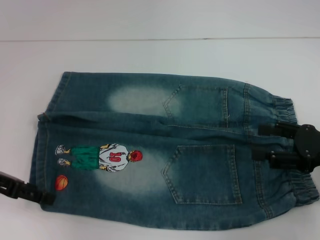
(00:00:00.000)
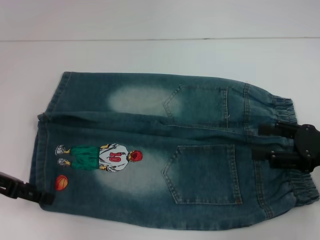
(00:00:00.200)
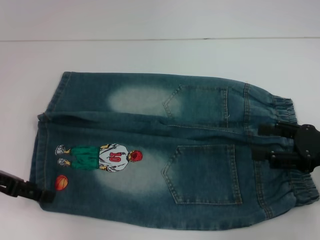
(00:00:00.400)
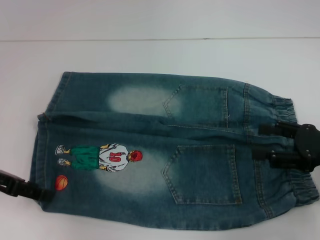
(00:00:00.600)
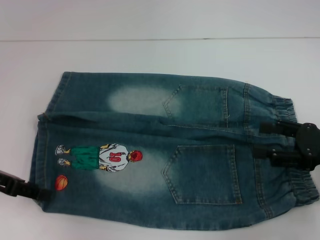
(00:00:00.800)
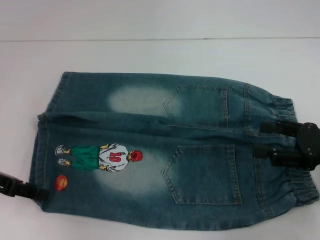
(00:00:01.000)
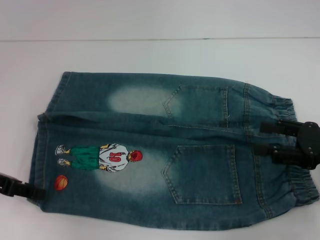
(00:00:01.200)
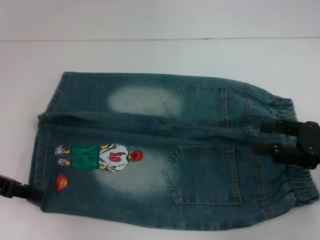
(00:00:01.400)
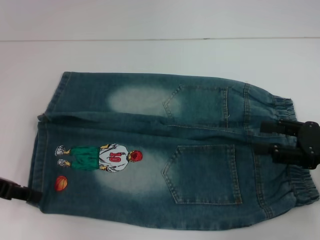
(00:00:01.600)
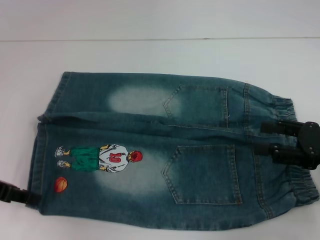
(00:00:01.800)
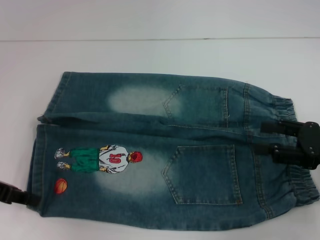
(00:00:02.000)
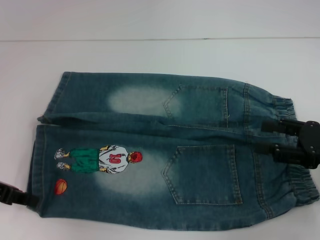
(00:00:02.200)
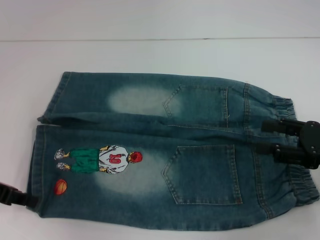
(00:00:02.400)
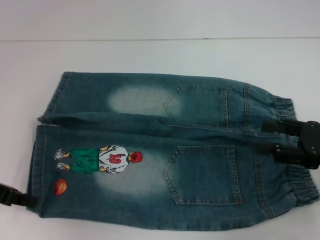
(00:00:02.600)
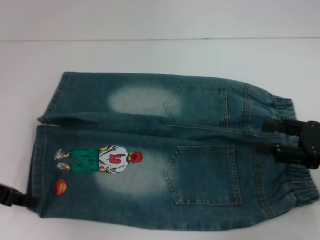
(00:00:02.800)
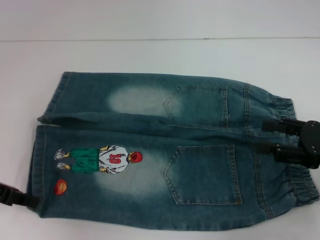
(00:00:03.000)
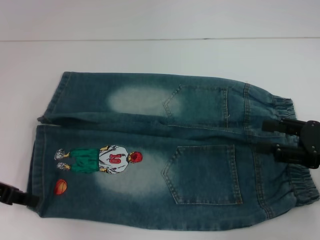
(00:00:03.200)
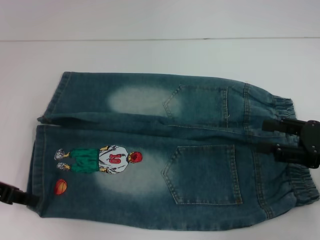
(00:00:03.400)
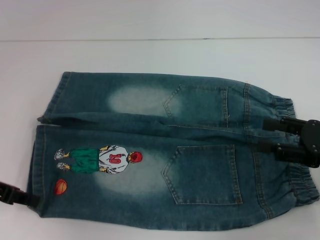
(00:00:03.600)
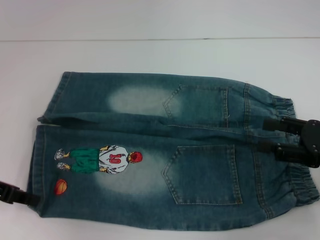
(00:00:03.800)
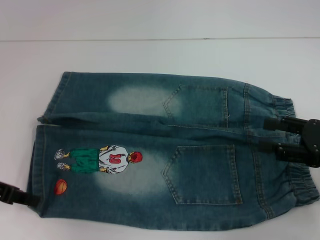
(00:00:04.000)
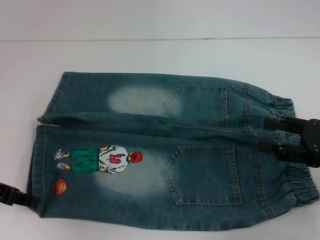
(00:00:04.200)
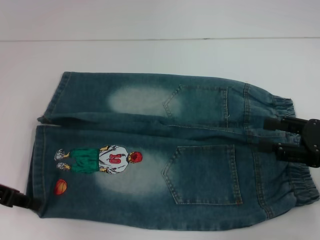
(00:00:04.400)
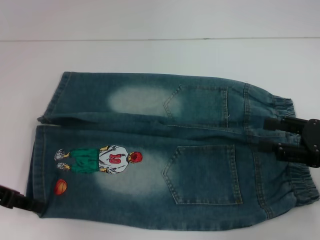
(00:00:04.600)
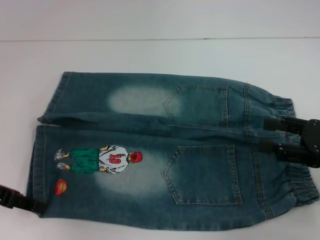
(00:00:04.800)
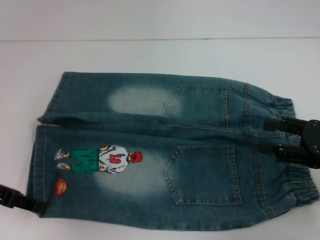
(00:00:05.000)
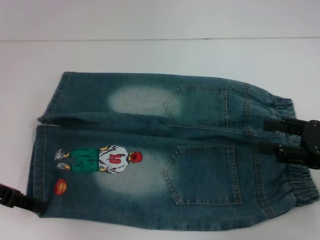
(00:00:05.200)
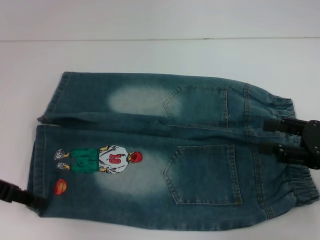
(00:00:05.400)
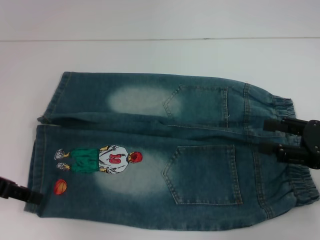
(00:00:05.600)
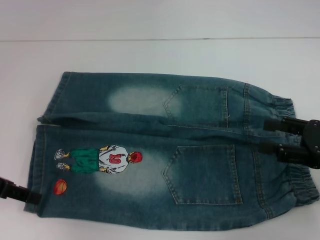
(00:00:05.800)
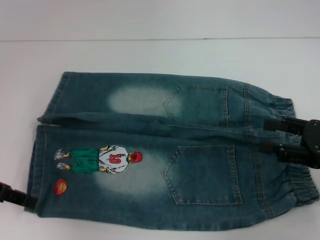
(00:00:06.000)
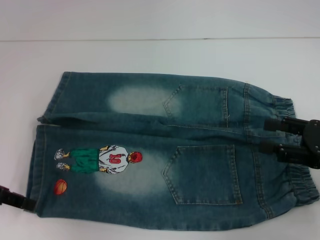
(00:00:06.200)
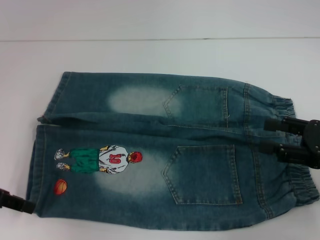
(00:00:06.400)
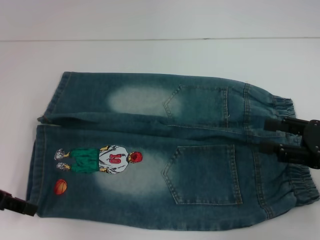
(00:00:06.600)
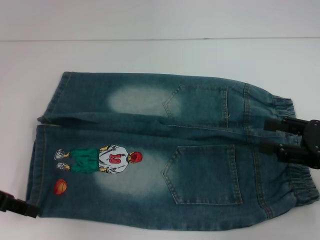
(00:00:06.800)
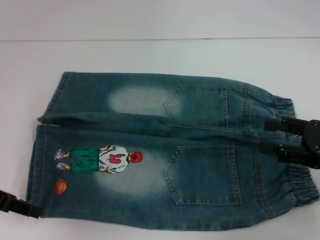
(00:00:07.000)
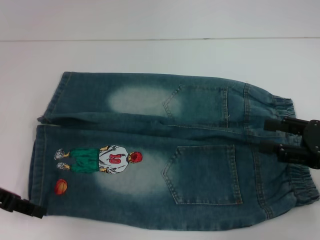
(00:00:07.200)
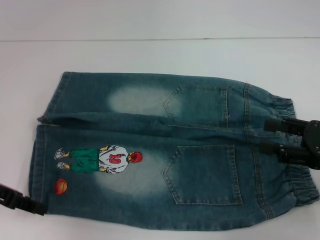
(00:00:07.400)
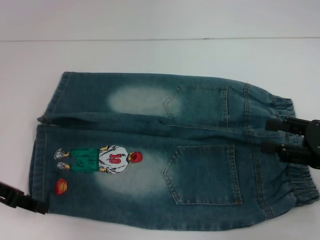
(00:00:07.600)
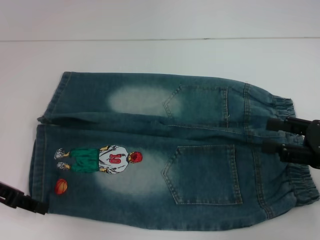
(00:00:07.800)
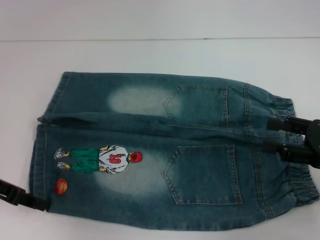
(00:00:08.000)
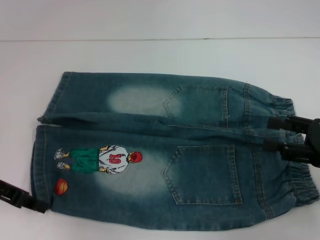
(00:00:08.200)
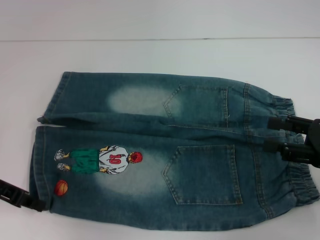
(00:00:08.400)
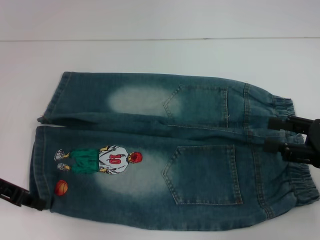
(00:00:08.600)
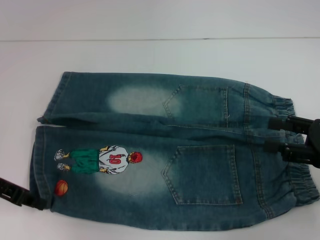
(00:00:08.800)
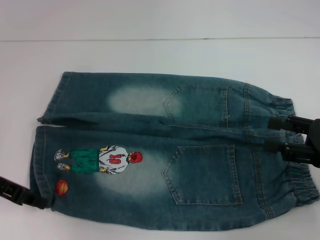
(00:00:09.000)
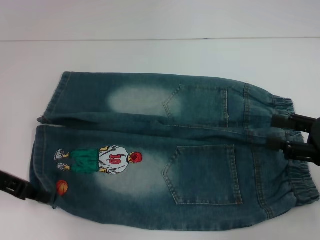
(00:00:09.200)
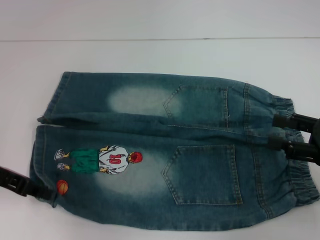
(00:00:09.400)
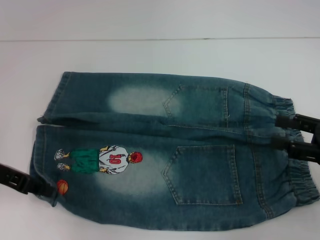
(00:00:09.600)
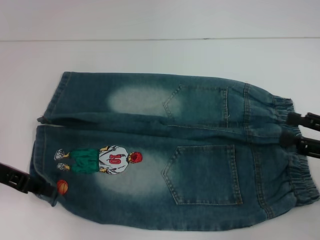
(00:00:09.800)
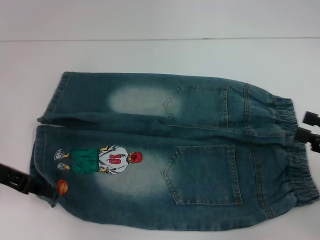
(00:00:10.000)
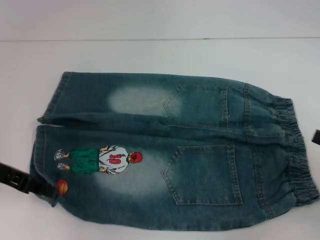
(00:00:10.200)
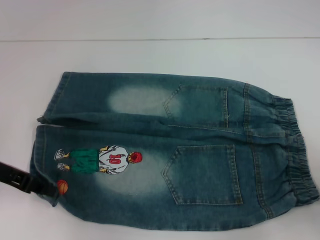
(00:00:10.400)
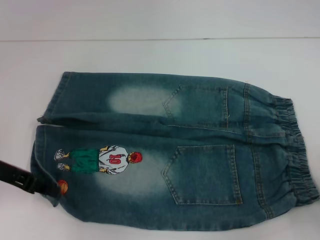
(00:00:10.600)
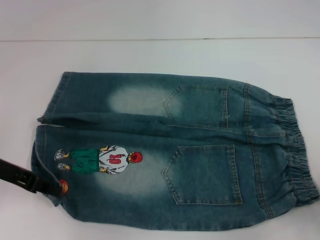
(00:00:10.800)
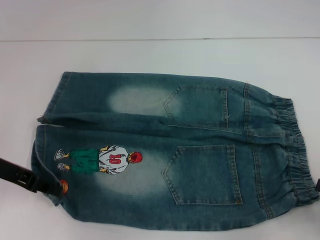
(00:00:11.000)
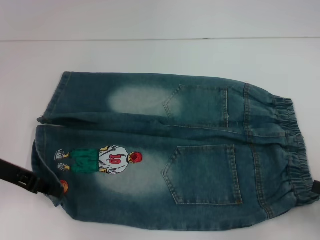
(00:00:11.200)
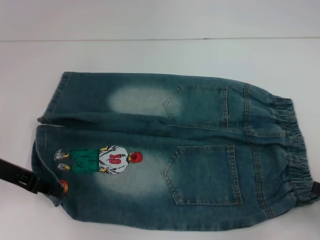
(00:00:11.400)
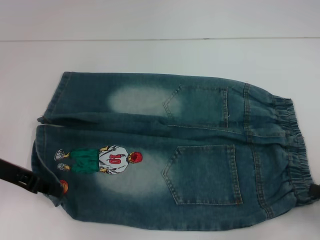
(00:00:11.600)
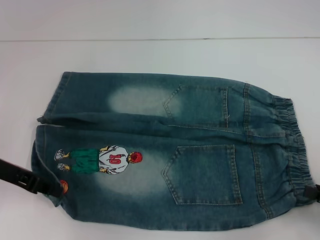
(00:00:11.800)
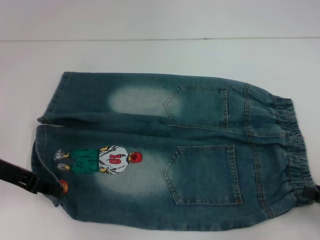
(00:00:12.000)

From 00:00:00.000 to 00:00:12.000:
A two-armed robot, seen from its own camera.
From 00:00:00.000 to 00:00:01.600: The left gripper closes up.
From 00:00:01.600 to 00:00:04.400: Both grippers stay put.
From 00:00:07.600 to 00:00:09.000: The left gripper closes its fingers.
From 00:00:09.000 to 00:00:10.400: The right gripper shifts about 10 cm backward and to the right.

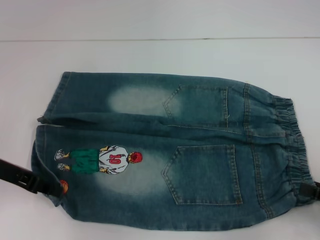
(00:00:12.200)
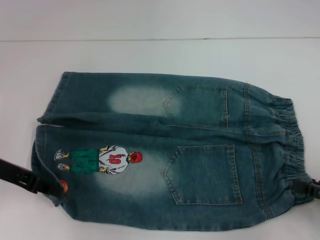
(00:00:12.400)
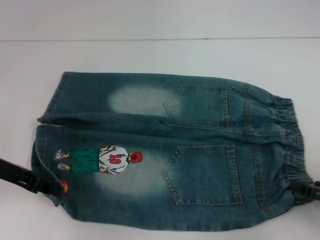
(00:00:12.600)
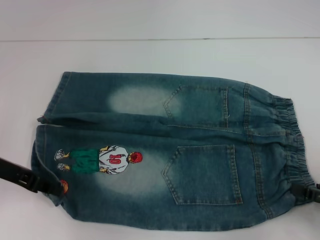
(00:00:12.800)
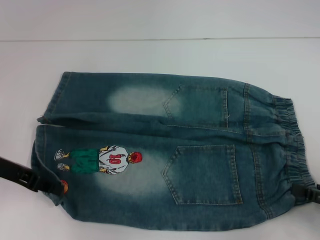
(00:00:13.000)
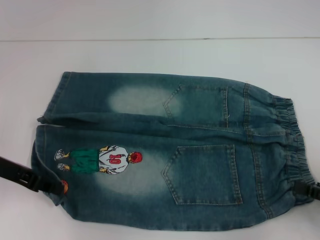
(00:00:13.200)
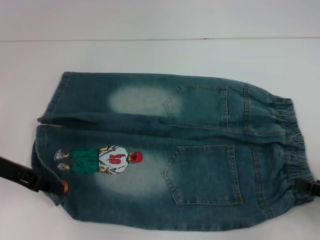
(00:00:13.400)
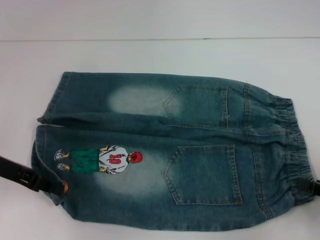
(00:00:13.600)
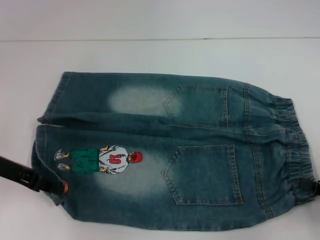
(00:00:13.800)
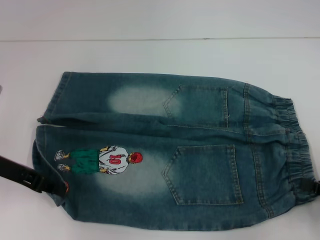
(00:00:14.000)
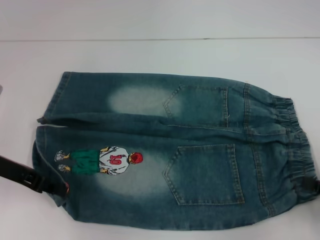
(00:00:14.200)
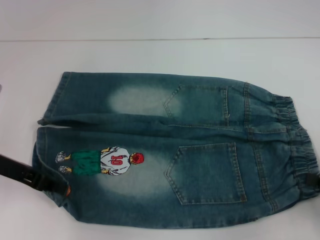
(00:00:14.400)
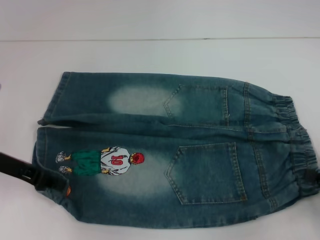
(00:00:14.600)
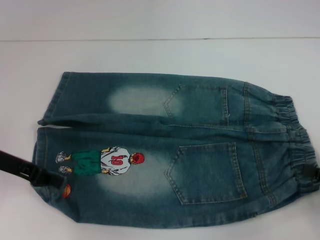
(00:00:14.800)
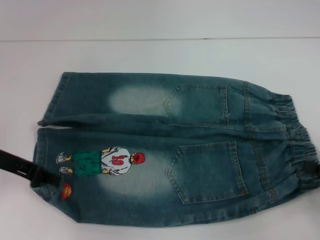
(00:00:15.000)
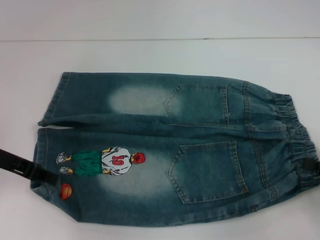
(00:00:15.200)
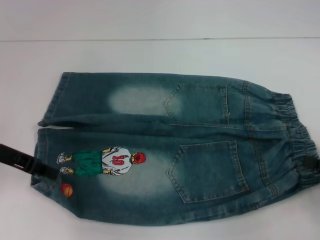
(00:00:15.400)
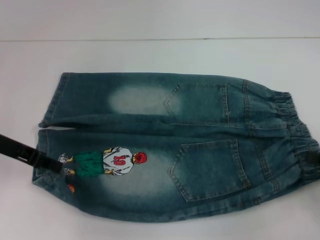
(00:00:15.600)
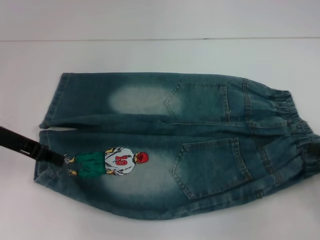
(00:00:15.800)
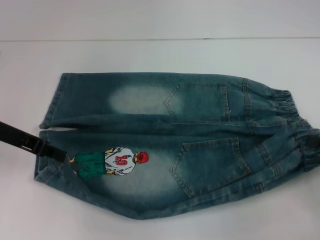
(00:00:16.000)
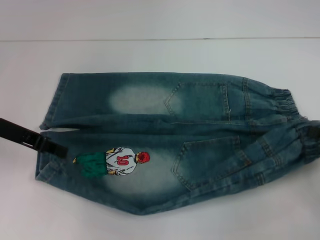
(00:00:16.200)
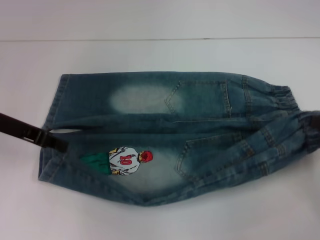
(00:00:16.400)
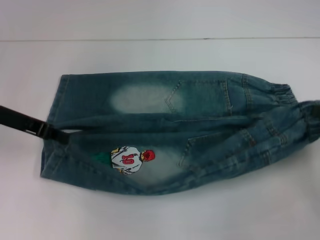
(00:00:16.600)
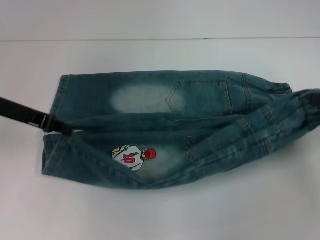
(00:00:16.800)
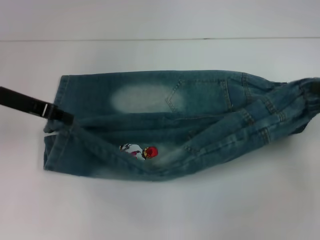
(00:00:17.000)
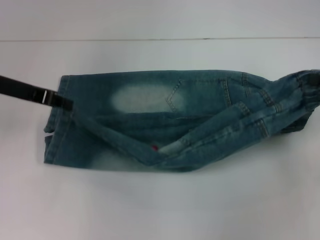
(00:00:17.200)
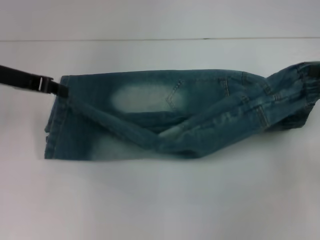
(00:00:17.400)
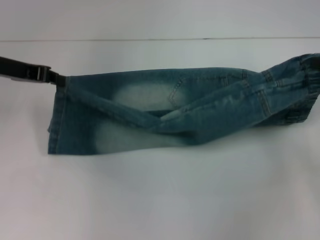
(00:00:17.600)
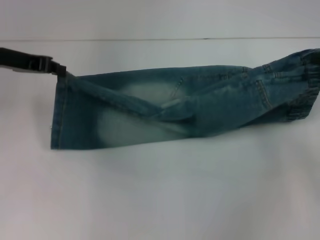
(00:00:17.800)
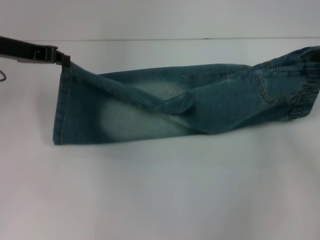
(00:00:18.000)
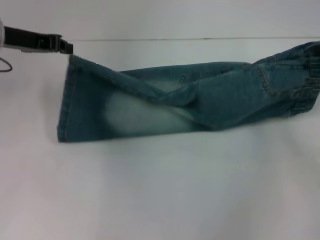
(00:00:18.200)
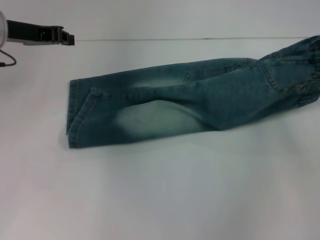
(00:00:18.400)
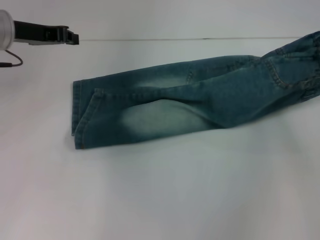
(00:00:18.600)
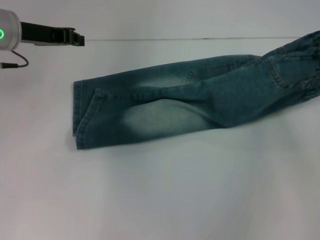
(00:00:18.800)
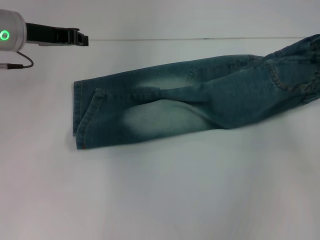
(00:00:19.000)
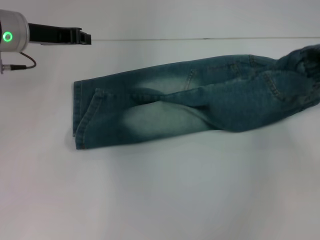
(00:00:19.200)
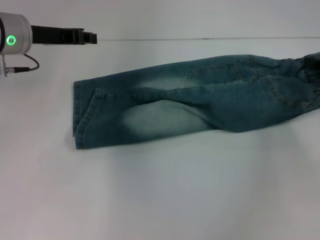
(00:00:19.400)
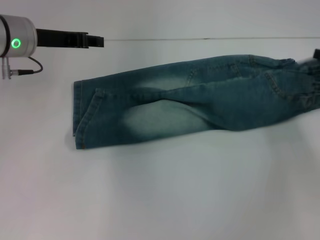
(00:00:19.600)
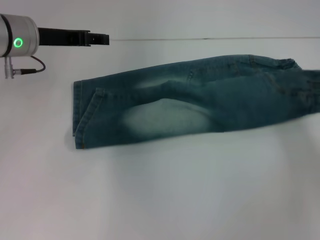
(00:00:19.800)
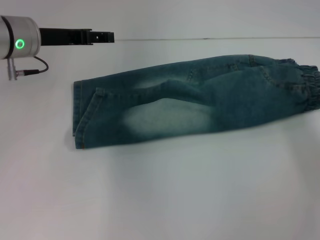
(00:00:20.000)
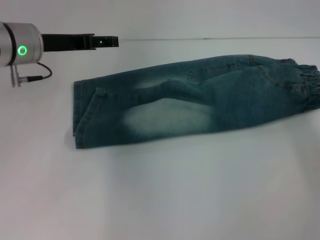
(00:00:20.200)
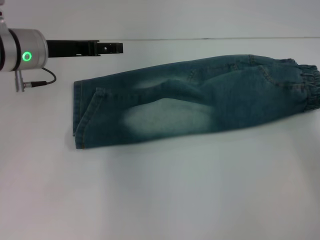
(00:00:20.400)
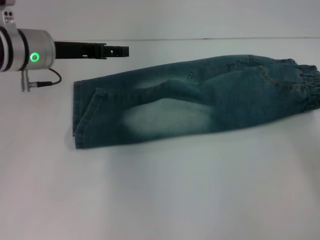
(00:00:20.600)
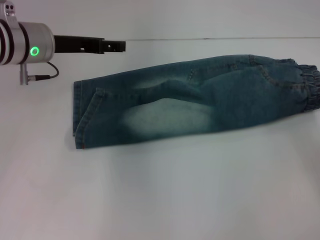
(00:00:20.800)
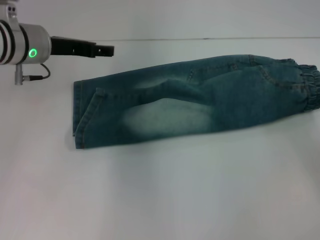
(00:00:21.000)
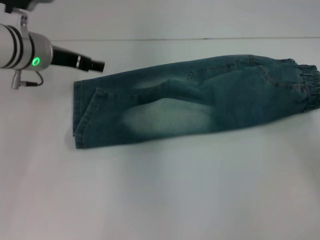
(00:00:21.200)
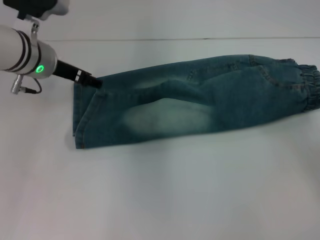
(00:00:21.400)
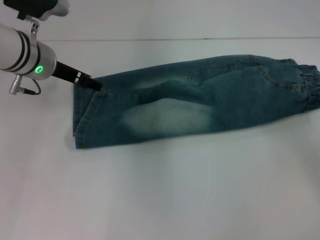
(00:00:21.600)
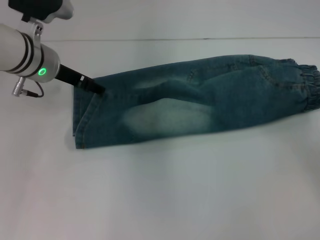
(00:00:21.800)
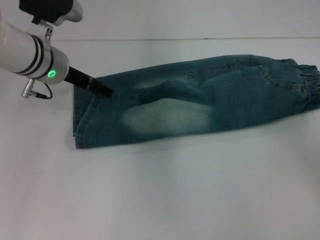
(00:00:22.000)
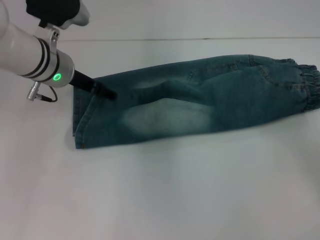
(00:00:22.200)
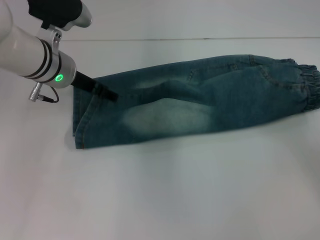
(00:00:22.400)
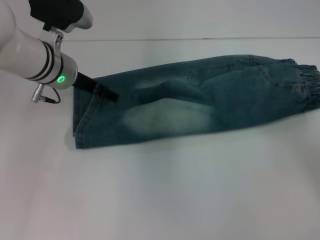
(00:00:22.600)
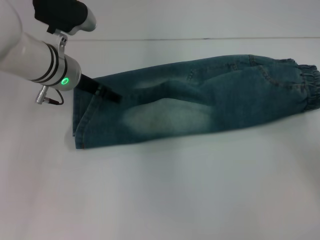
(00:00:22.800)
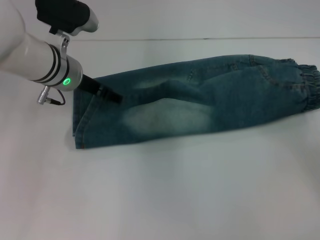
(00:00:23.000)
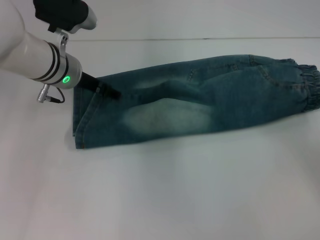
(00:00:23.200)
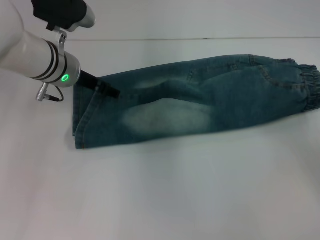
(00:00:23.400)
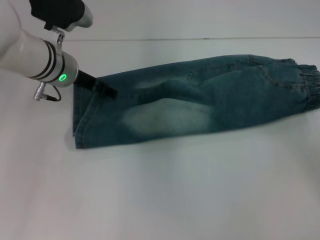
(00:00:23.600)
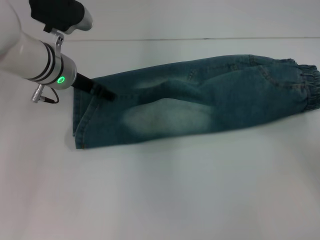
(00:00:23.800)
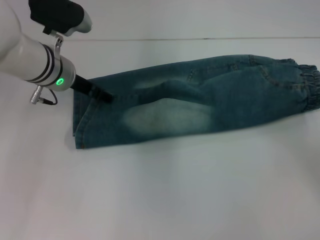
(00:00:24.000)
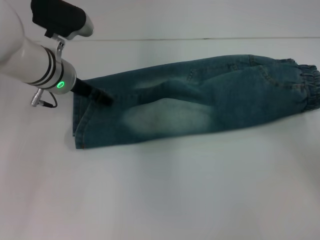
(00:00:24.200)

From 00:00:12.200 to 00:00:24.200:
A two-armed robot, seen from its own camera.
From 00:00:12.200 to 00:00:13.800: The right gripper closes.
From 00:00:13.800 to 00:00:15.200: There are only small adjustments of the grippers.
From 00:00:15.200 to 00:00:16.600: The right gripper shifts roughly 10 cm forward and upward.
From 00:00:16.600 to 00:00:18.200: The left gripper moves forward, some 5 cm. Meanwhile the right gripper shifts about 10 cm forward and upward.
From 00:00:18.200 to 00:00:19.800: The right gripper changes place by some 5 cm, and opens its fingers.
From 00:00:19.800 to 00:00:21.200: The right gripper heads backward, covering about 5 cm, and opens up; the left gripper opens its fingers.
From 00:00:21.200 to 00:00:22.600: The grippers stay close to where they were, moving slightly.
From 00:00:22.600 to 00:00:24.200: Both grippers stay put.
